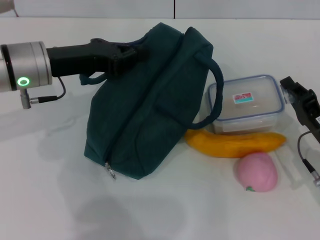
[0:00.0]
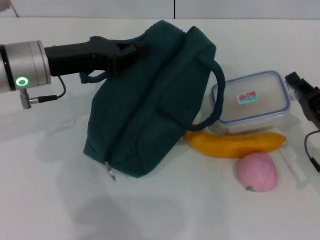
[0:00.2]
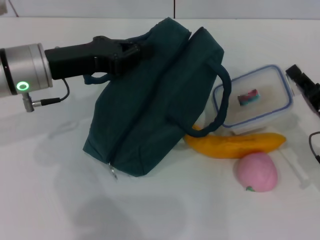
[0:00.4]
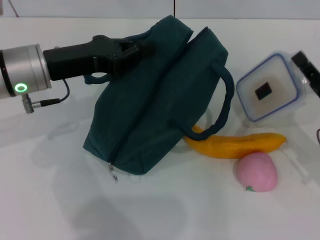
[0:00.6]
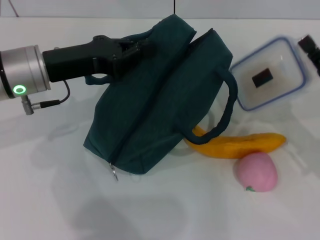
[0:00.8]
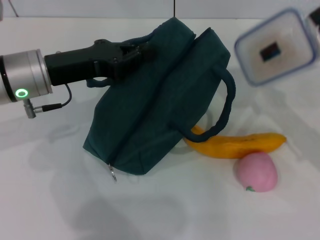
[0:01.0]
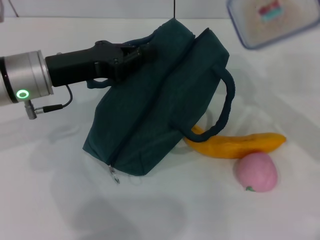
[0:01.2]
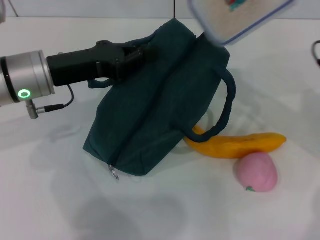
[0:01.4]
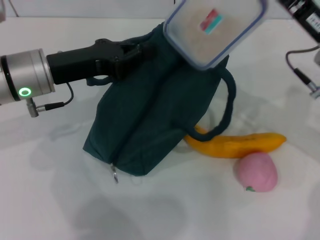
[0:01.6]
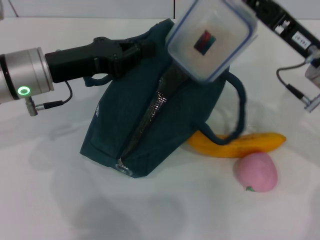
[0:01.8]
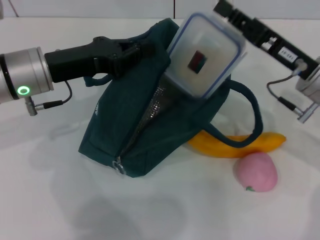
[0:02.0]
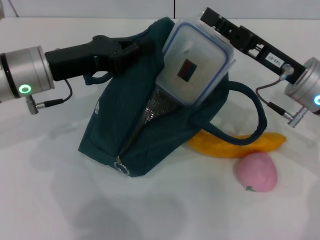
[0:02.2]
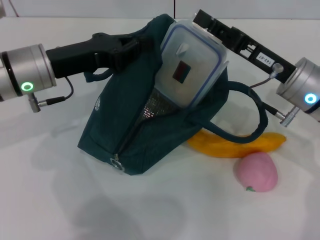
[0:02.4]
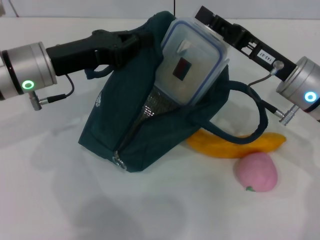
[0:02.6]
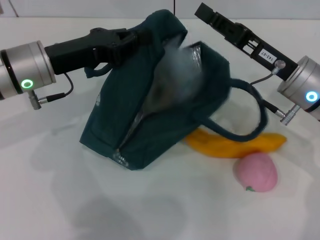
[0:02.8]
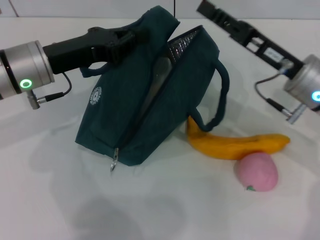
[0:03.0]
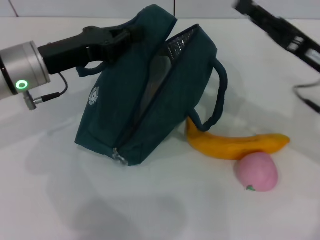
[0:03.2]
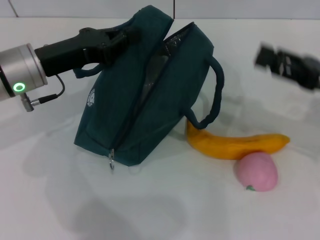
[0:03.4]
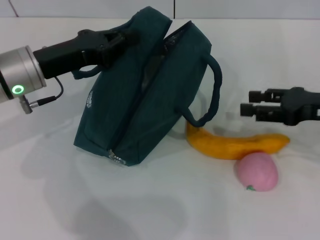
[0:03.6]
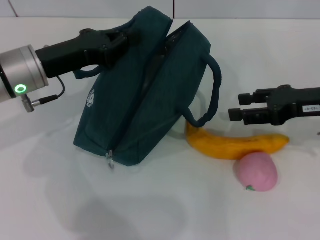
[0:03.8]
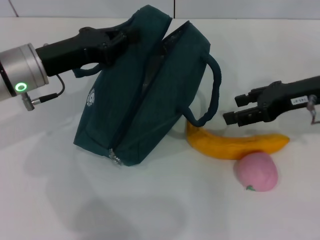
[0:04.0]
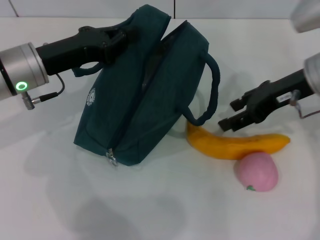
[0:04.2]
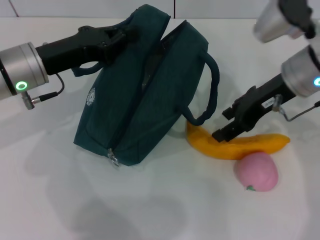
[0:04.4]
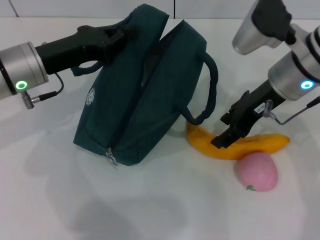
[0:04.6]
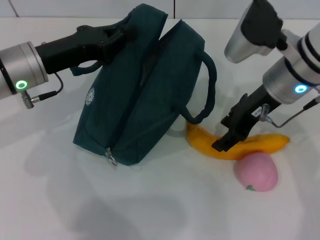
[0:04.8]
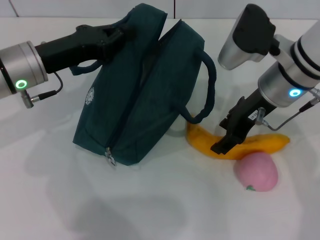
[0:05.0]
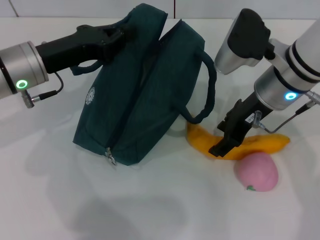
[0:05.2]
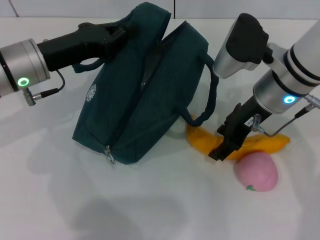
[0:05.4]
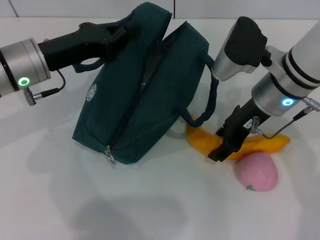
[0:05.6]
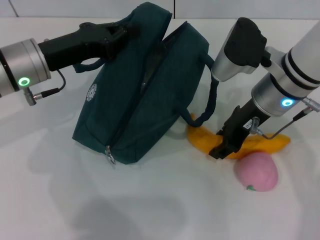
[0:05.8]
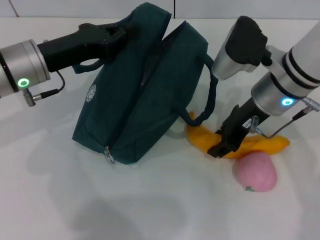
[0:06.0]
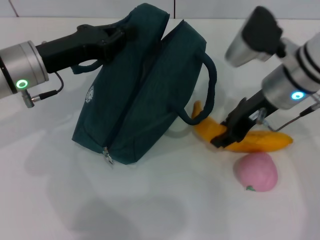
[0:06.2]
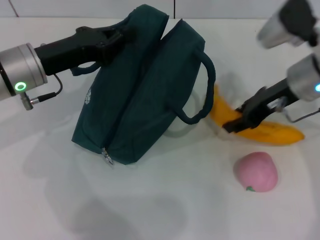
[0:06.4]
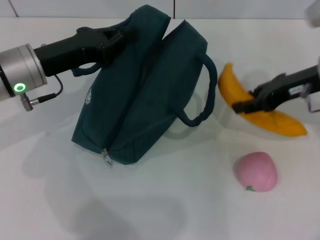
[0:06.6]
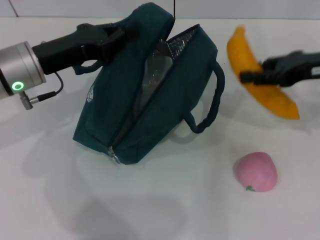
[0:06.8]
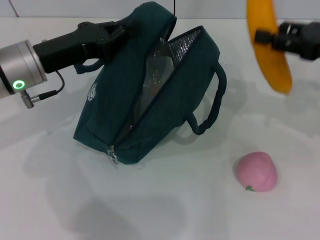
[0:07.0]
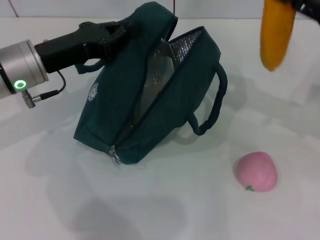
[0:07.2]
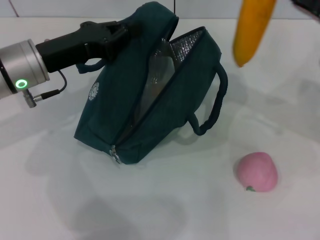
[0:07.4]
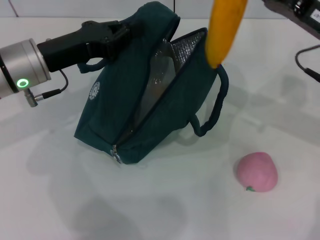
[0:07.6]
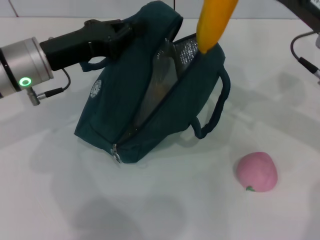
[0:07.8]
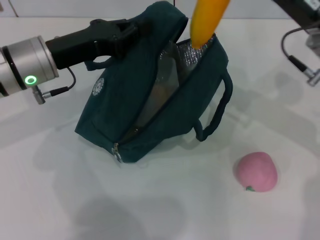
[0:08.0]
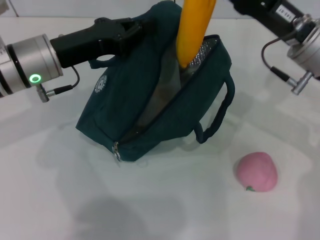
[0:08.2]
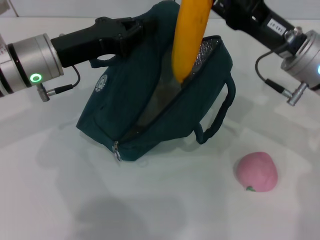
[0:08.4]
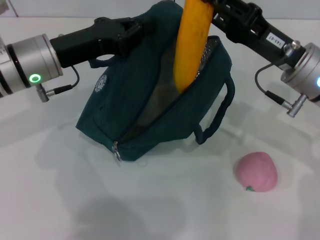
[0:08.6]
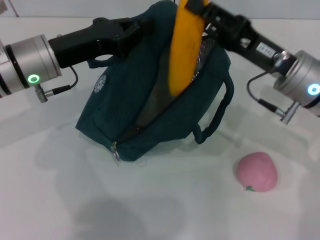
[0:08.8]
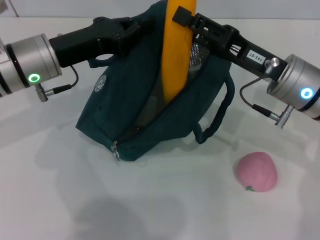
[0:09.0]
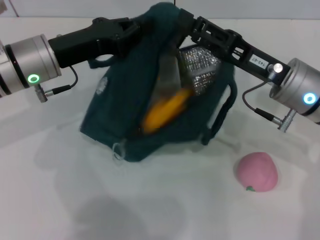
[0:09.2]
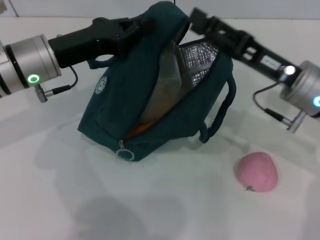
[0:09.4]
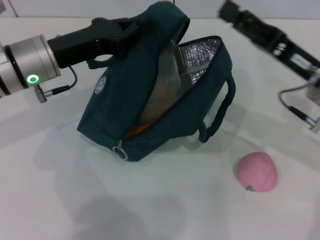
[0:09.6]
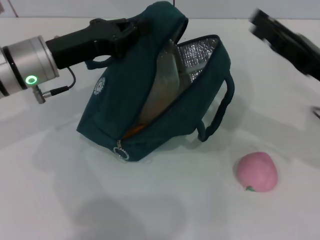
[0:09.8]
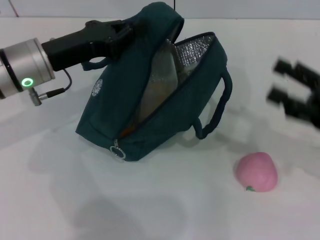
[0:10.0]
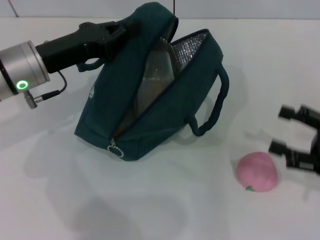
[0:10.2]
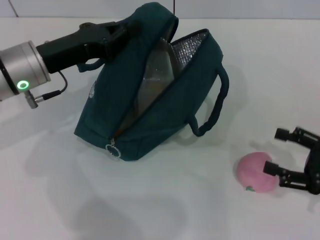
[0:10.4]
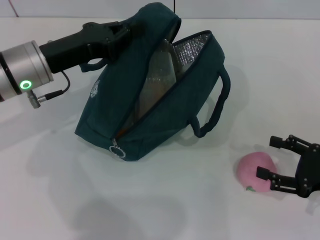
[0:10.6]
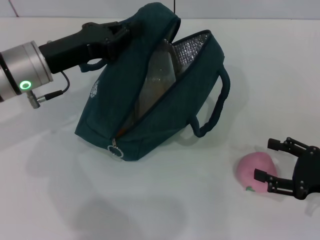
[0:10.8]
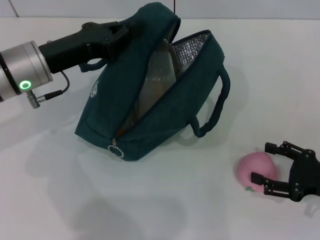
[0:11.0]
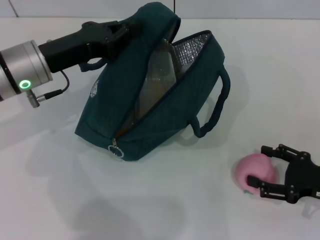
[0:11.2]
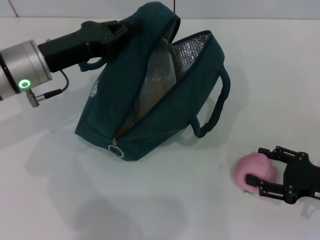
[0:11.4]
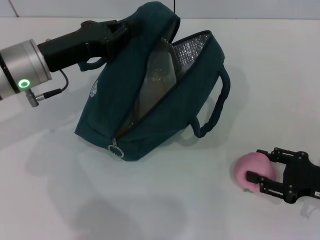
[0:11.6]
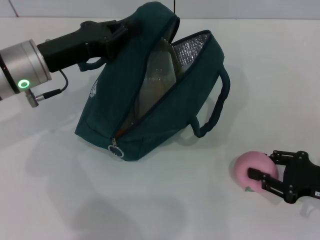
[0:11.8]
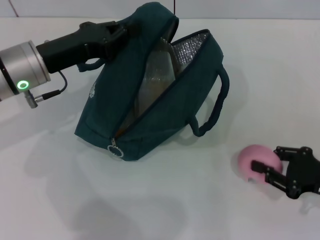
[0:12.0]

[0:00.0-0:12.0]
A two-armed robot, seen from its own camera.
Step, 0:00.2 to 0:02.8: Place the lunch box into the lunch bag with your right hand.
Step, 0:03.0 to 0:06.0: Take the banana with your right hand.
Step, 0:06.2 to 0:09.2: Put the banana into the lunch bag with your right hand.
Step, 0:09.4 to 0:11.8: Grab the peach with your right hand.
0:00.0 to 0:01.6: The right gripper heads upward and forward, covering some 15 cm.
0:03.0 to 0:04.4: The right gripper shifts about 5 cm upward, reaches approximately 10 cm to the right, then returns, and opens.
0:04.4 to 0:06.0: There are only small adjustments of the grippers.
0:06.0 to 0:07.6: The right gripper moves to the right, approximately 10 cm.
0:07.6 to 0:09.0: The right gripper shifts approximately 5 cm to the left.
0:09.0 to 0:10.4: The right gripper moves to the right, backward and downward, roughly 20 cm, and opens its fingers.
0:10.4 to 0:12.0: The right gripper closes up.

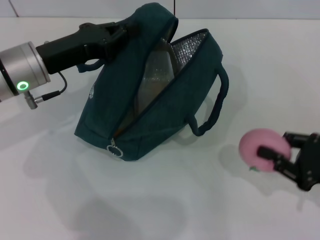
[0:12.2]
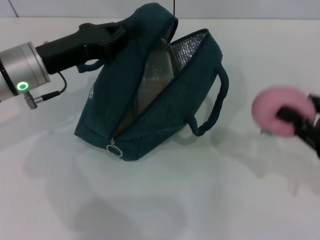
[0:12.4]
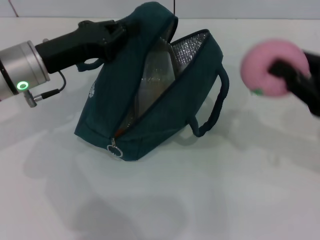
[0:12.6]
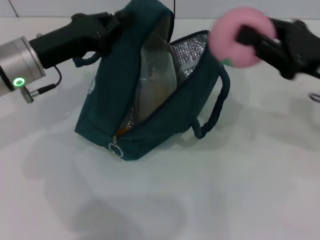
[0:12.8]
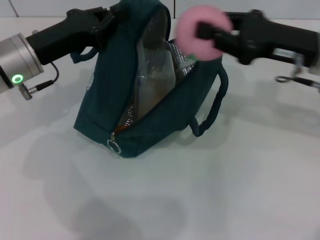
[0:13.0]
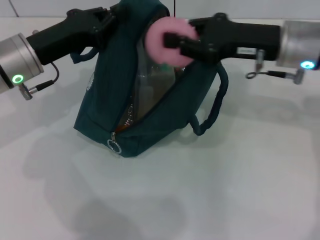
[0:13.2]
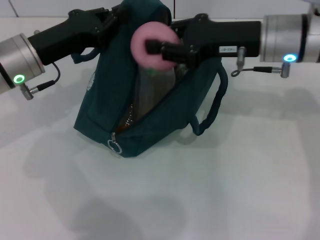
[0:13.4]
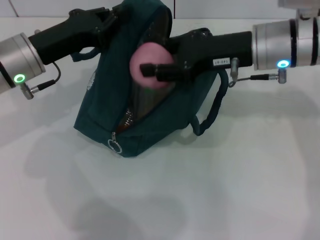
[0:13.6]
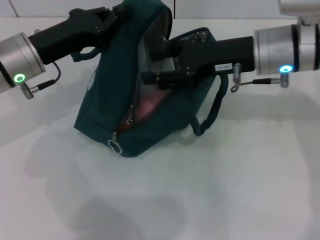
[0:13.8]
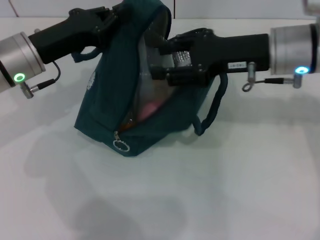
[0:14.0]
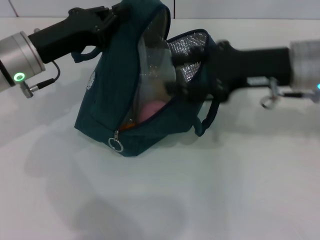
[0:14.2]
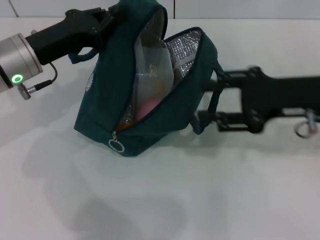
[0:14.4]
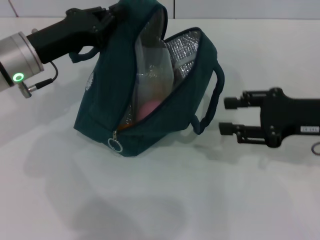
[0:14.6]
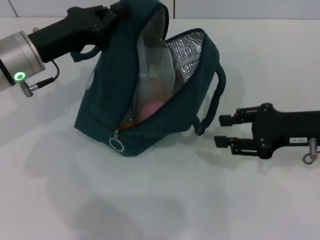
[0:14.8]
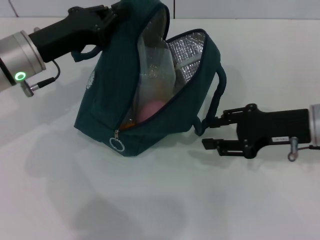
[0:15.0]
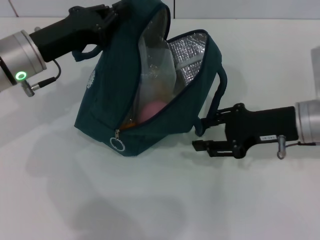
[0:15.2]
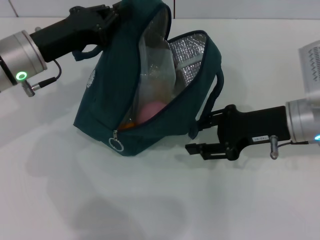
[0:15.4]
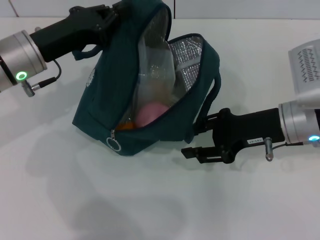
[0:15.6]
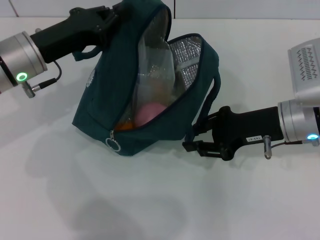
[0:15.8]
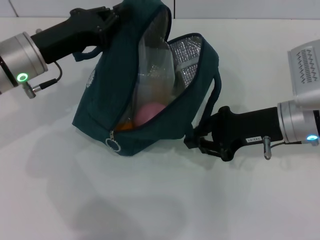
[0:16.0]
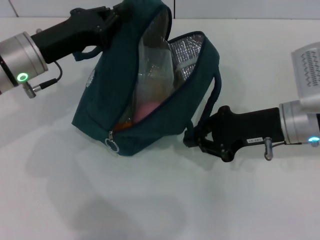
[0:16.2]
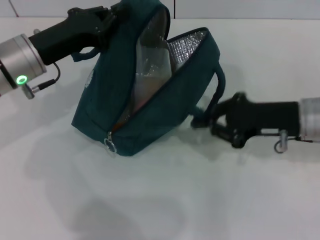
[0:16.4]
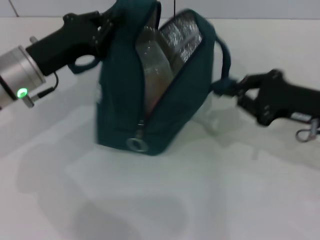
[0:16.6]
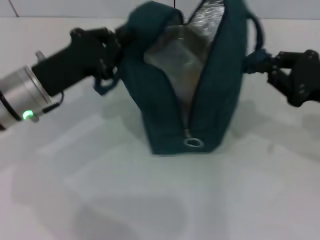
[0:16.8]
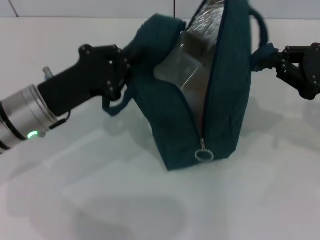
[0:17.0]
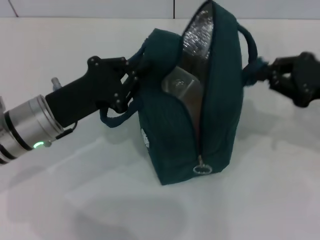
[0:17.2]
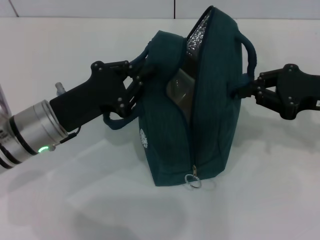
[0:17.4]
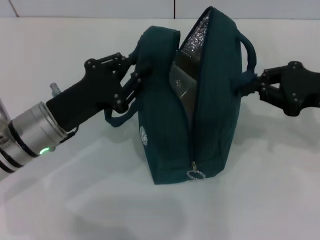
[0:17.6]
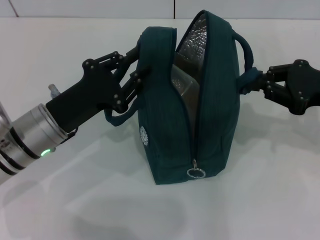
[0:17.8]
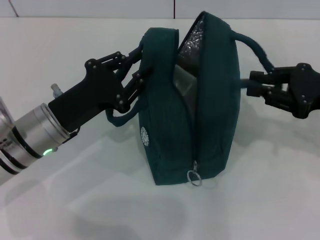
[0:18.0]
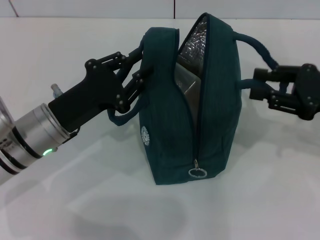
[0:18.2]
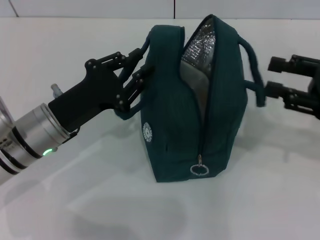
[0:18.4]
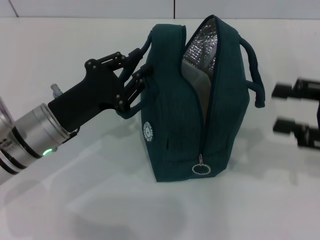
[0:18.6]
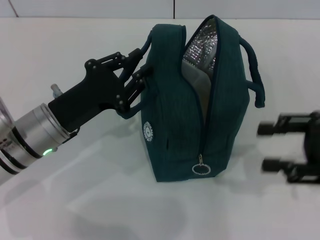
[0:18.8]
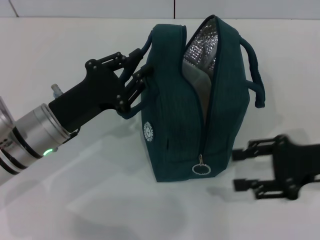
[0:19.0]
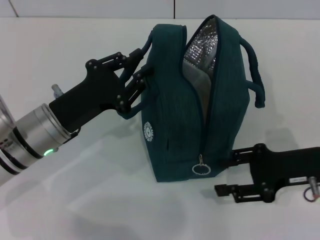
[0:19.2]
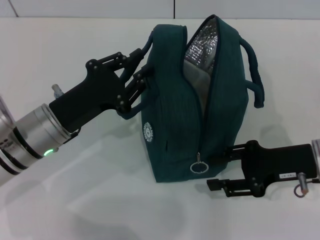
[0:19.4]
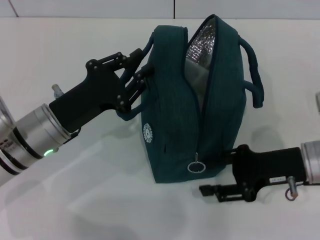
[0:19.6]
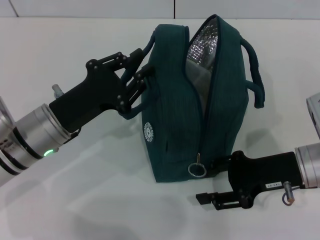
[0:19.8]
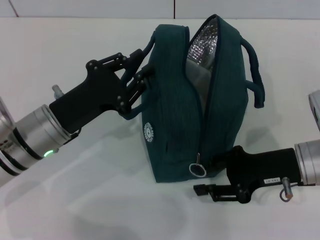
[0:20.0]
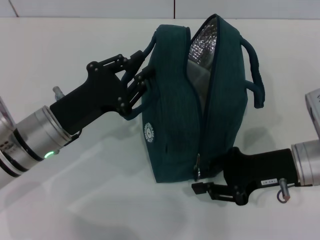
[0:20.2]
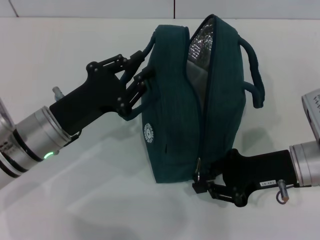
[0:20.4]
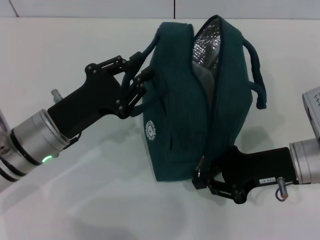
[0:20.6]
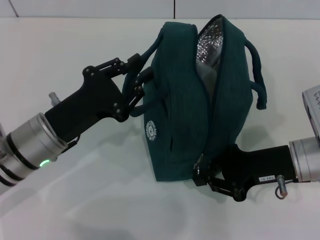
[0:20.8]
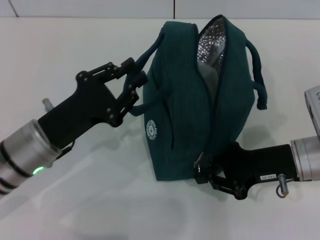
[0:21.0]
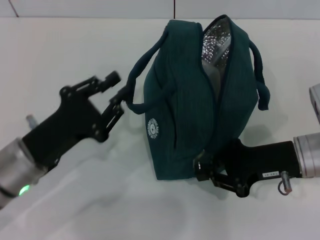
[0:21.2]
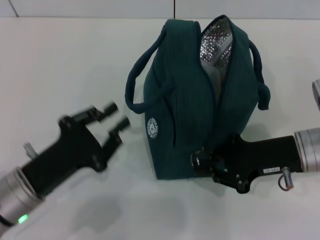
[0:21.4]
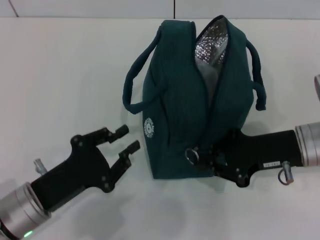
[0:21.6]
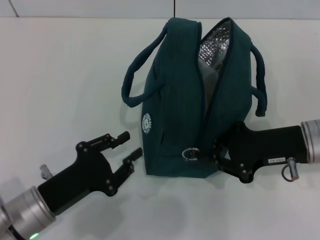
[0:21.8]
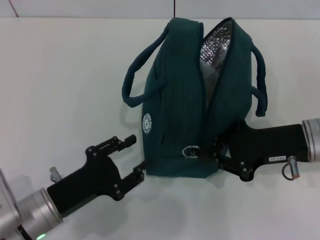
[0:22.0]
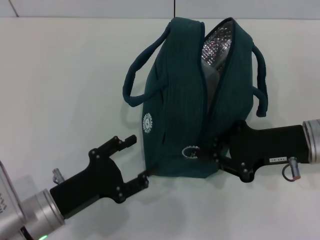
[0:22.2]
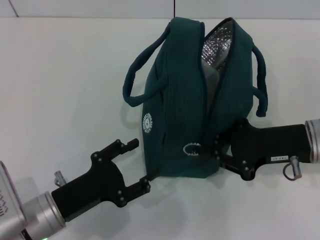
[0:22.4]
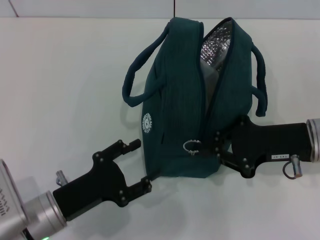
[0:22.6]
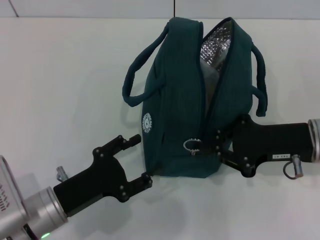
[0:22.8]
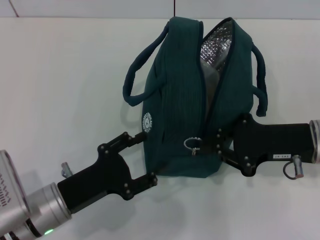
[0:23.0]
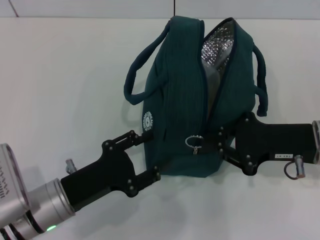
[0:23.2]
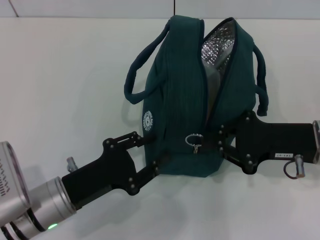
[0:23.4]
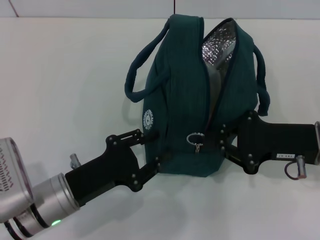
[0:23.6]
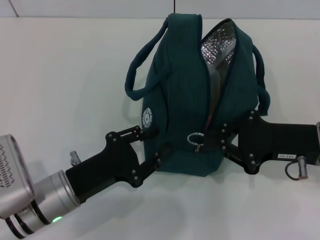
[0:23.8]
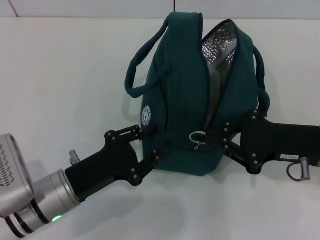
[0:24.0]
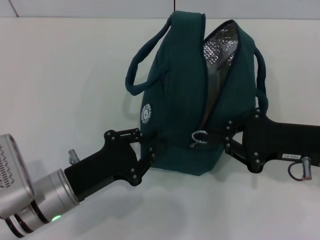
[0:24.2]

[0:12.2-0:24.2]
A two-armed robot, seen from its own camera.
Step, 0:14.0 to 0:18.0: Hold the lunch bag with your left hand.
0:12.2 to 0:13.8: The right gripper shifts some 25 cm to the left, forward and upward.
0:13.8 to 0:15.2: The right gripper goes approximately 10 cm downward, to the right and backward.
0:15.2 to 0:16.6: The right gripper closes.
0:16.6 to 0:18.2: The left gripper is displaced backward by approximately 5 cm, while the right gripper shifts by some 5 cm.
0:18.2 to 0:19.8: The right gripper moves to the left and downward, roughly 10 cm, and opens its fingers.
0:19.8 to 0:21.2: The left gripper moves approximately 5 cm. Meanwhile the right gripper closes.
0:21.2 to 0:22.6: The left gripper shifts roughly 5 cm downward, and opens up.
0:22.6 to 0:24.2: The left gripper closes.
